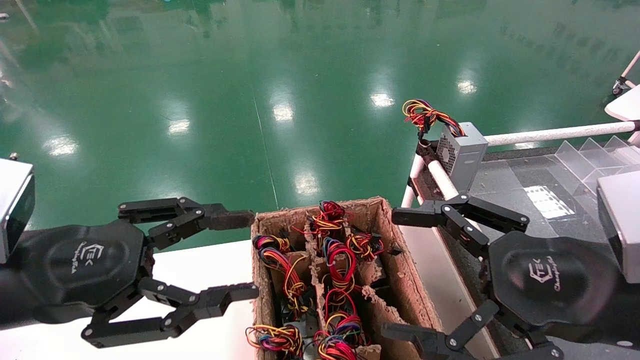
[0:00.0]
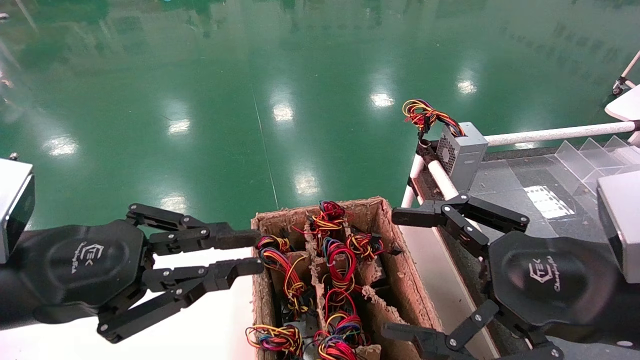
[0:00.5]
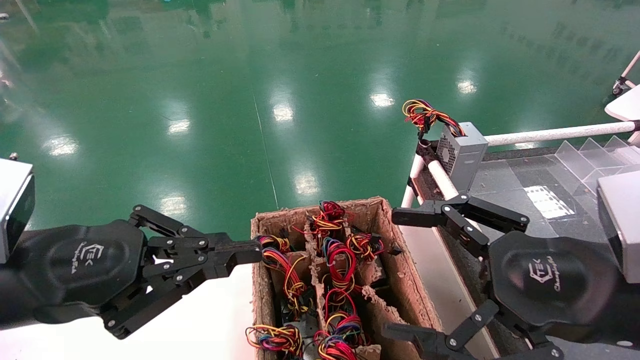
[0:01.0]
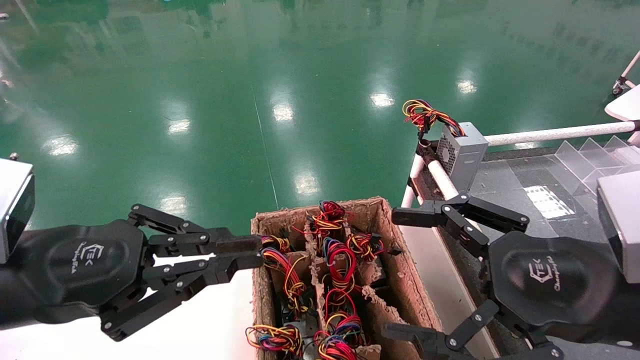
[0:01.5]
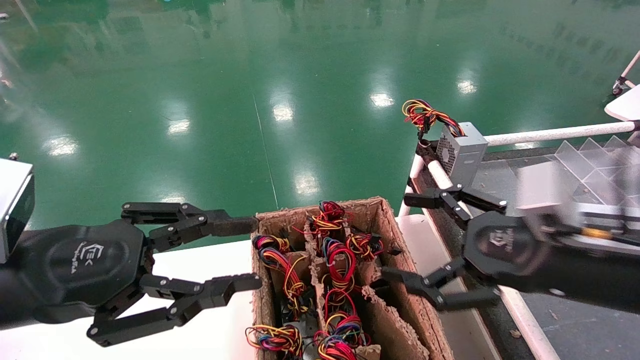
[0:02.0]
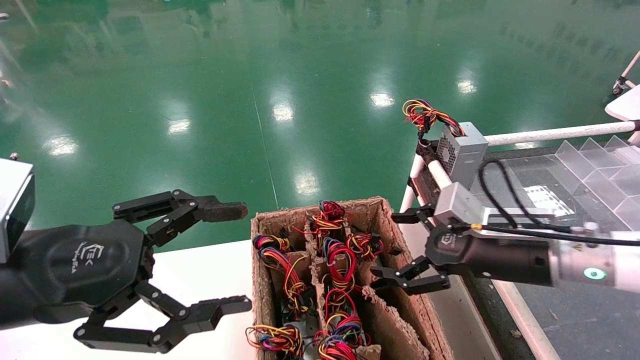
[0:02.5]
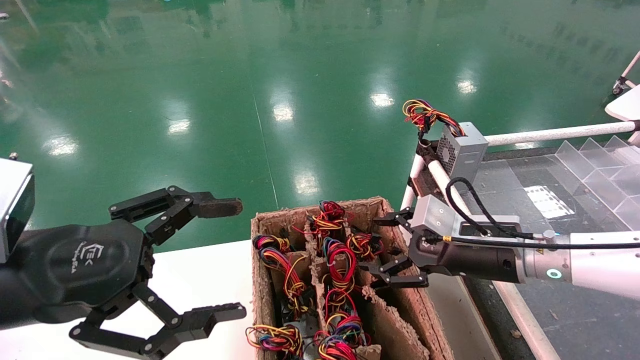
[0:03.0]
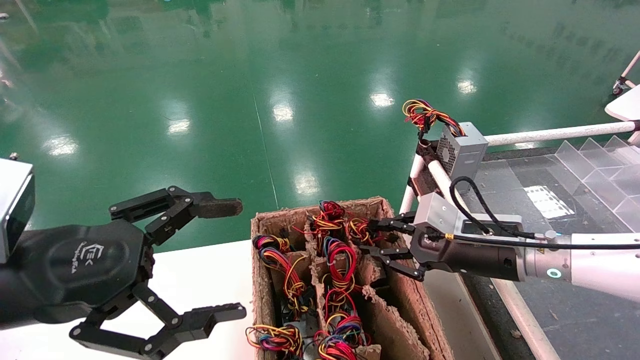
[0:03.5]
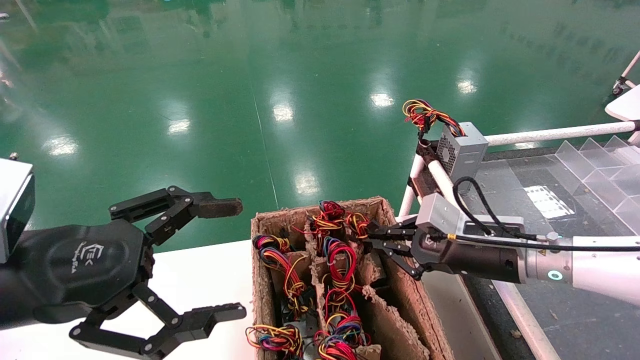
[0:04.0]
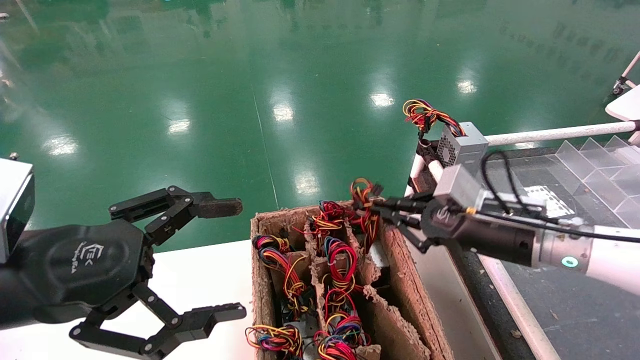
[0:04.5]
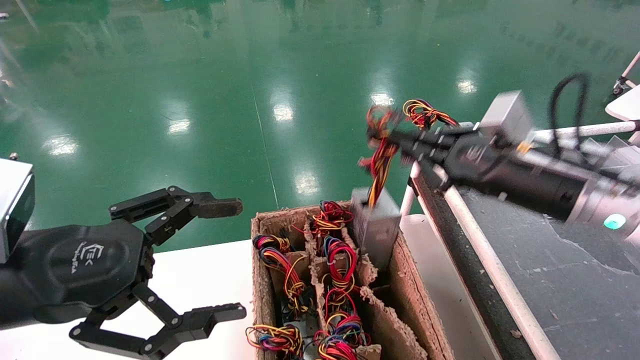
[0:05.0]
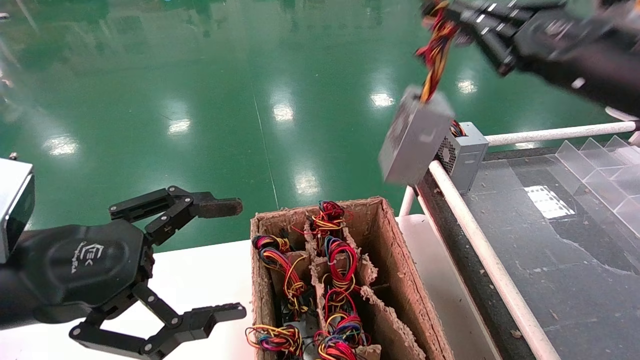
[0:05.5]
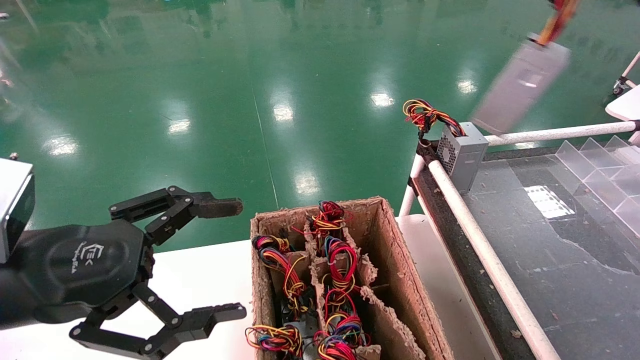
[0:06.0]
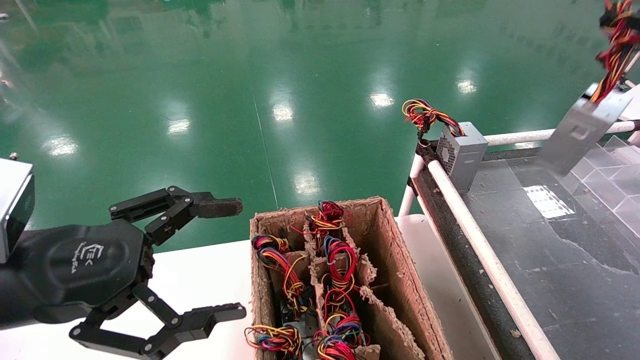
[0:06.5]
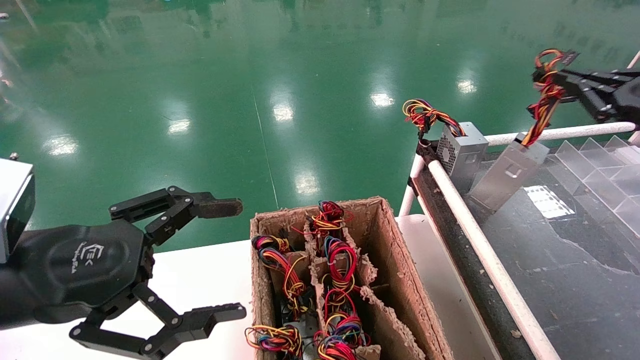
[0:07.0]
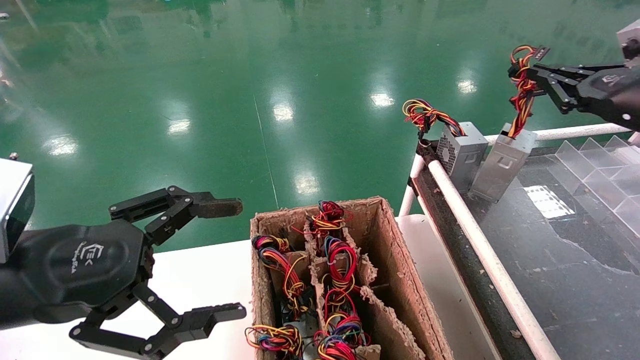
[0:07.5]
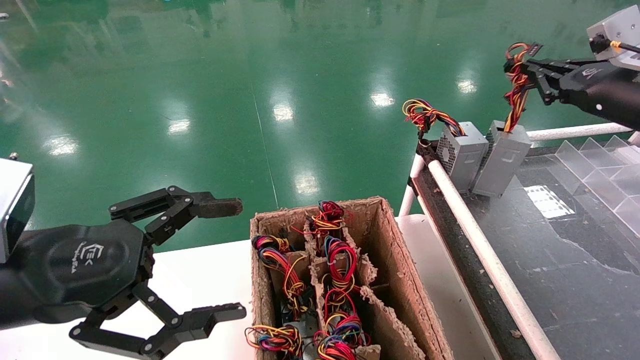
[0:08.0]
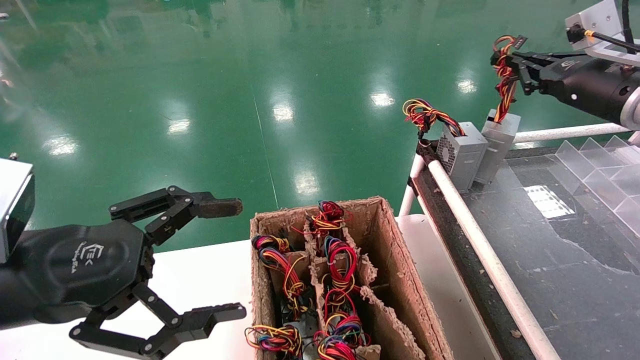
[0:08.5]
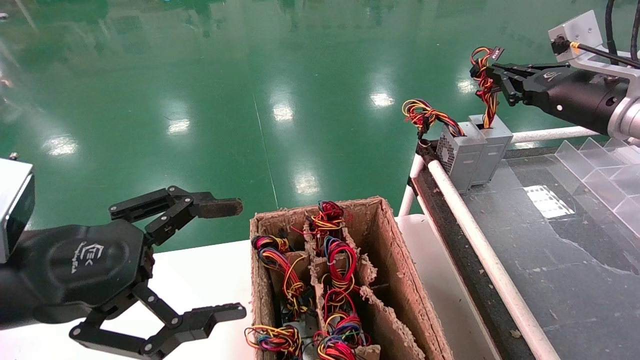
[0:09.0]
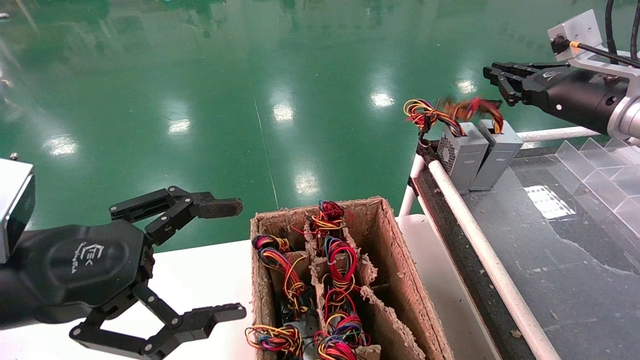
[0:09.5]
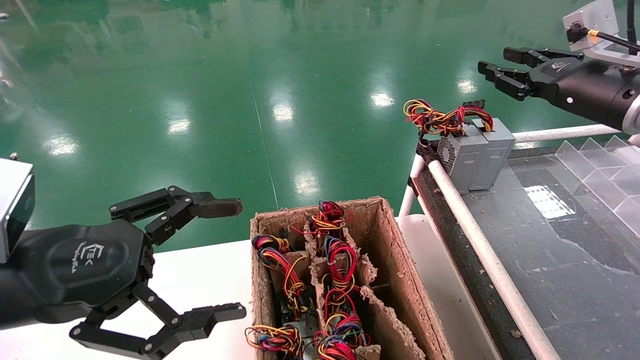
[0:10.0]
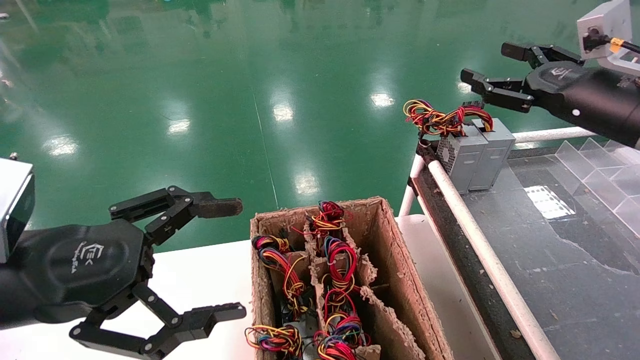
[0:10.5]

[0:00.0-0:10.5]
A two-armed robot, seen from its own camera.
Step, 0:01.0 to 0:04.0: Grab and lift the power supply from the large box.
Step, 0:04.5 to 0:09.0: Place the power supply on the operating table.
0:00.0 to 0:02.0: The right gripper heads forward, covering approximately 5 cm.
0:02.0 to 0:04.0: The right gripper shifts roughly 15 cm forward and downward, and closes its fingers, while the left gripper opens up.
0:04.0 to 0:06.5: The right gripper is displaced to the right and upward by some 30 cm.
0:06.5 to 0:08.5: The right gripper heads forward and to the left, covering about 15 cm.
0:08.5 to 0:10.5: The right gripper ends up some 5 cm from where it was, and opens.

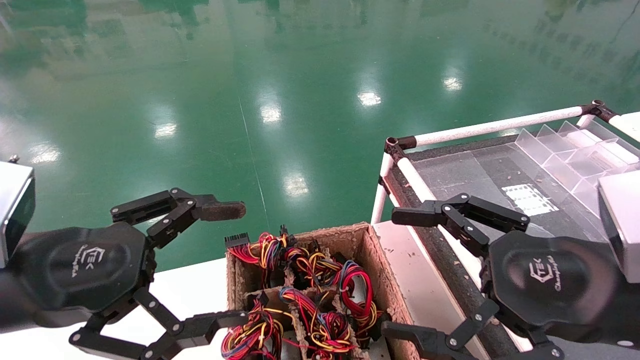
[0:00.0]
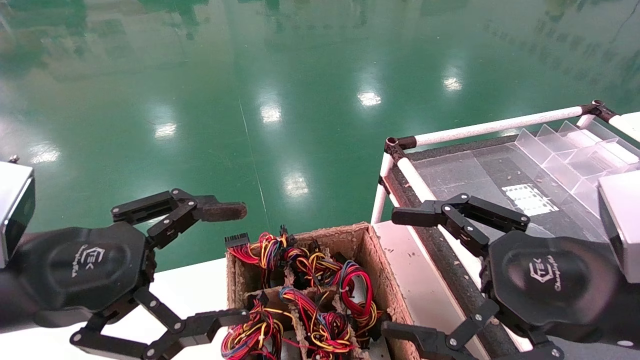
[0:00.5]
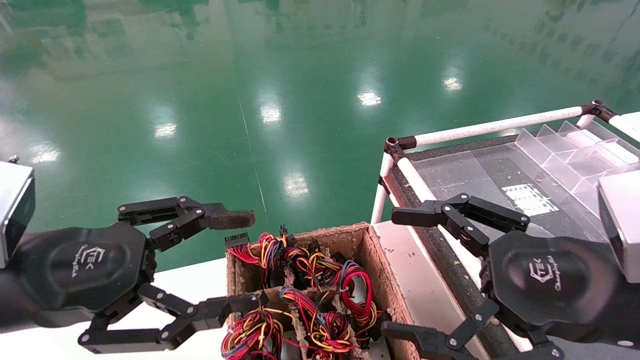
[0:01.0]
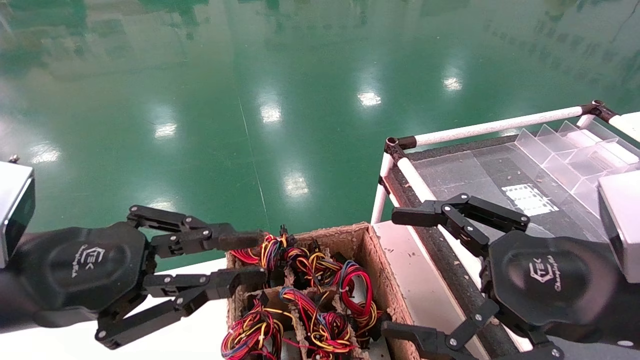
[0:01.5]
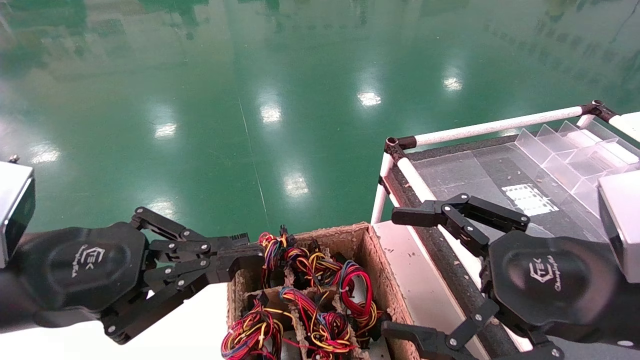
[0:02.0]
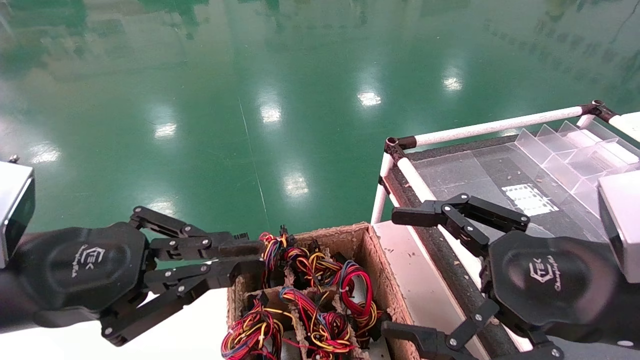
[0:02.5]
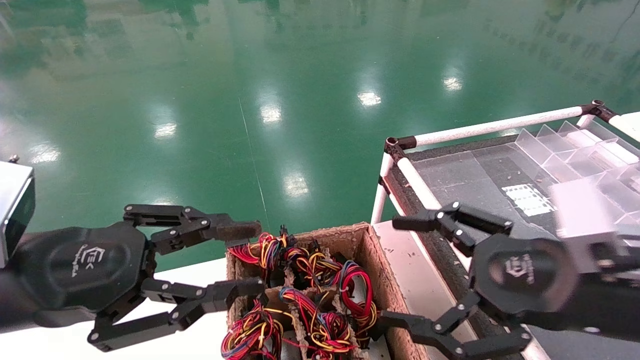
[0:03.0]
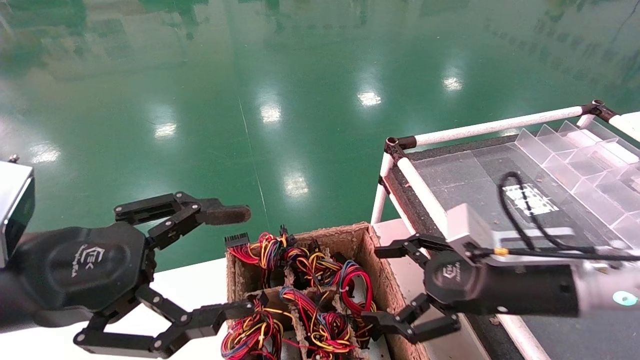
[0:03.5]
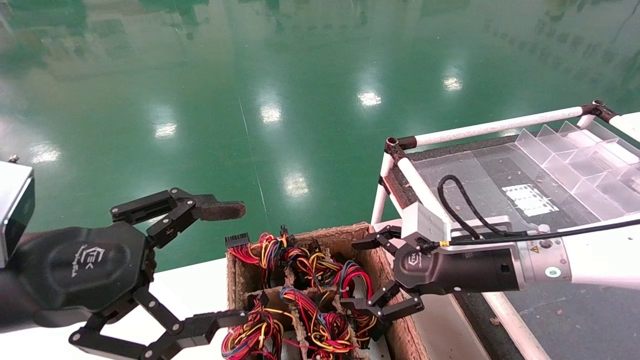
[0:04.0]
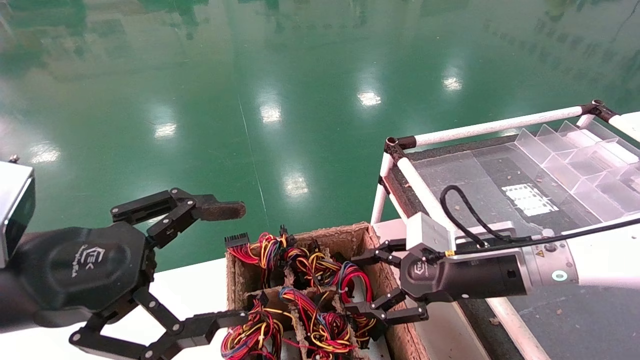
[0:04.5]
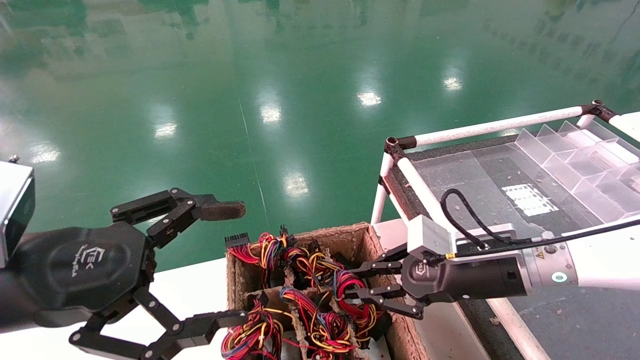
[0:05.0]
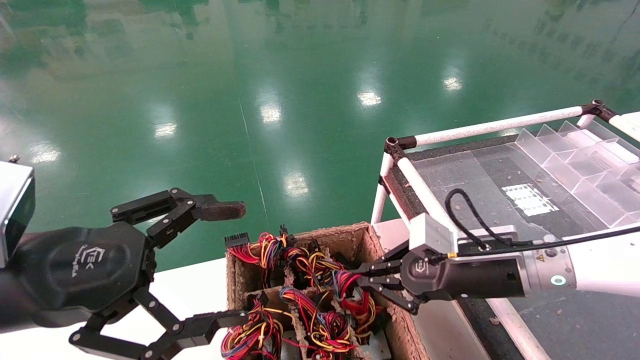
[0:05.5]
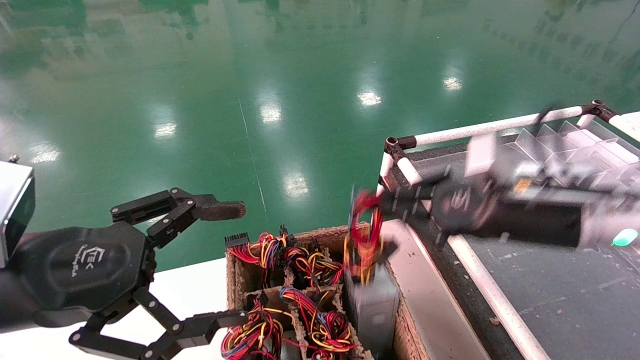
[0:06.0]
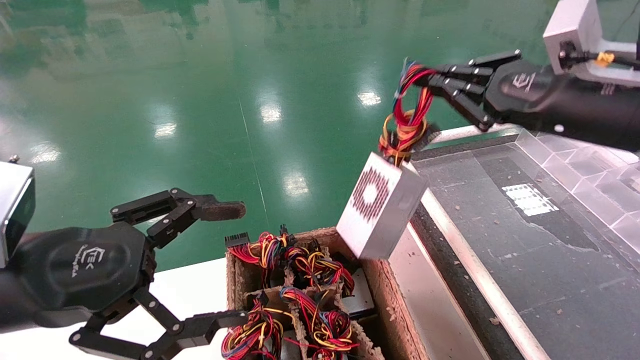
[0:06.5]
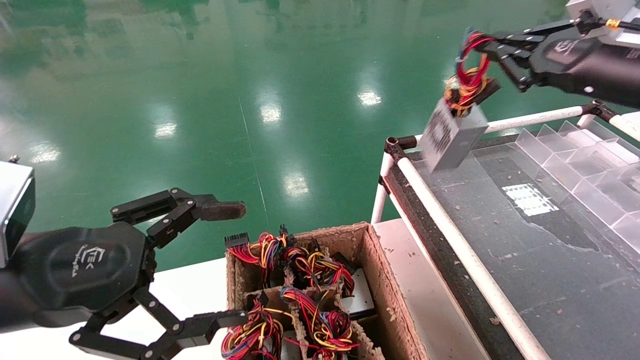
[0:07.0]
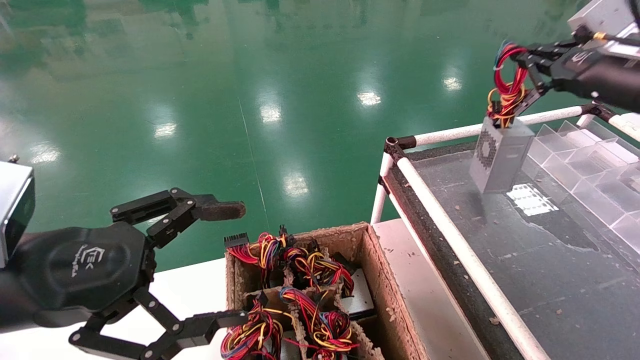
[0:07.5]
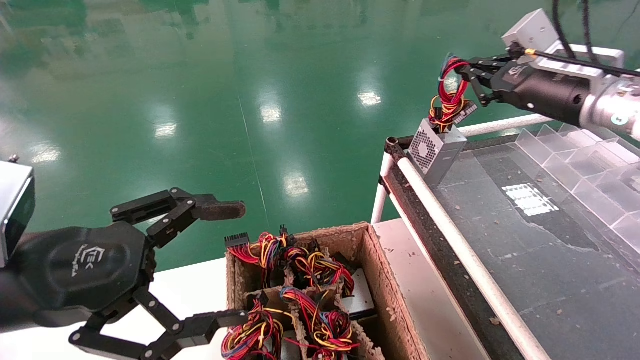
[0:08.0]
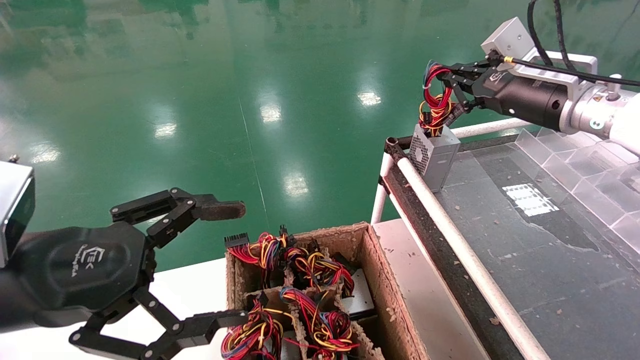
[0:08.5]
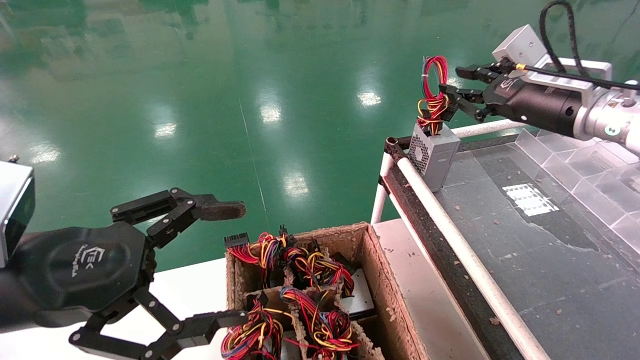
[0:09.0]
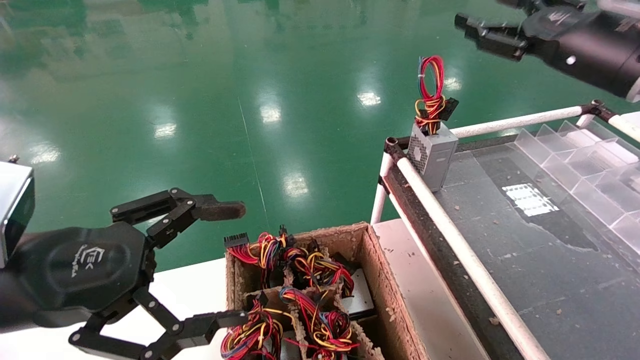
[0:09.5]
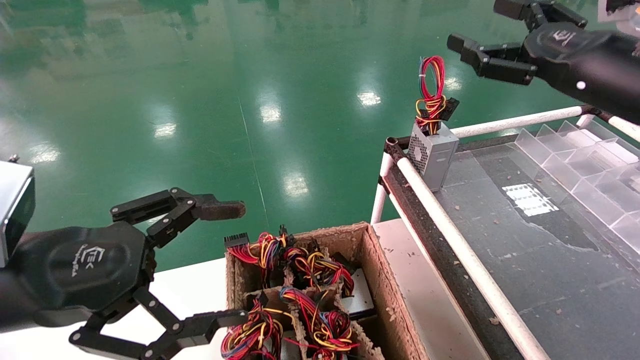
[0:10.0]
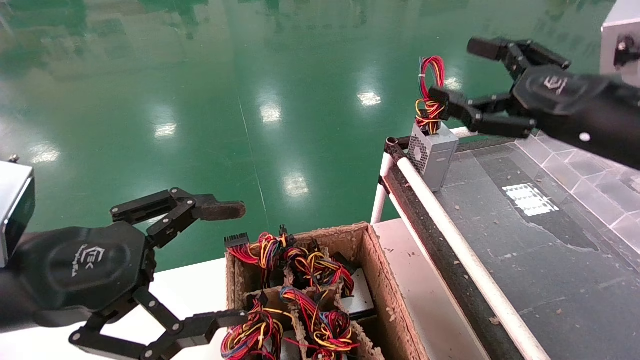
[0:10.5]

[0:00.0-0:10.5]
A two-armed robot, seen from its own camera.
Step, 0:02.0 to 0:05.0: Grab and lift the power supply from the large box.
Step, 0:05.5 to 0:08.5: Place the power supply on the operating table.
0:00.0 to 0:02.0: The left gripper closes.
0:02.0 to 0:04.0: The left gripper opens its fingers, while the right gripper shifts about 15 cm forward and downward.
0:04.0 to 0:06.5: The right gripper heads upward and to the right, covering about 20 cm, and closes up.
0:06.5 to 0:08.5: The right gripper moves forward, approximately 10 cm.
0:08.5 to 0:10.5: The right gripper shifts about 10 cm backward, and opens its fingers.
